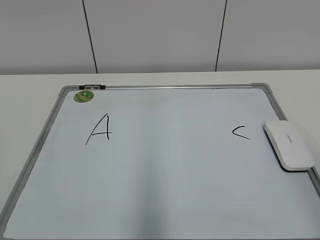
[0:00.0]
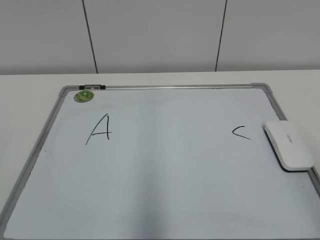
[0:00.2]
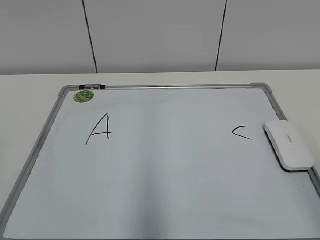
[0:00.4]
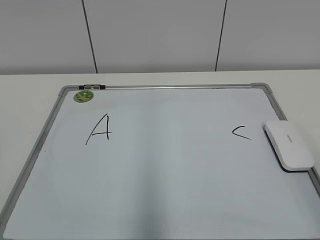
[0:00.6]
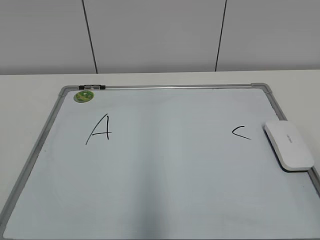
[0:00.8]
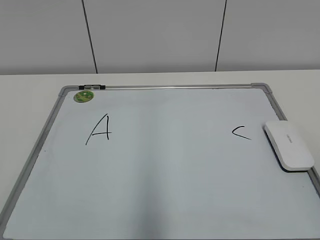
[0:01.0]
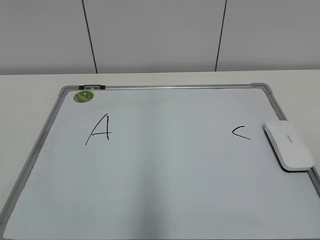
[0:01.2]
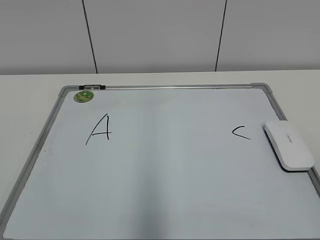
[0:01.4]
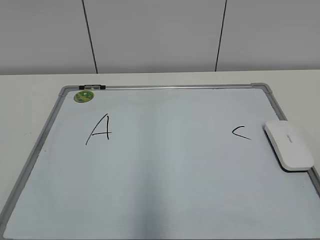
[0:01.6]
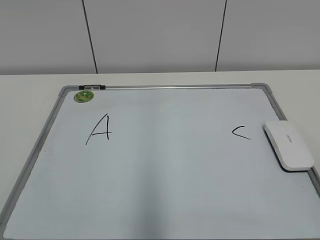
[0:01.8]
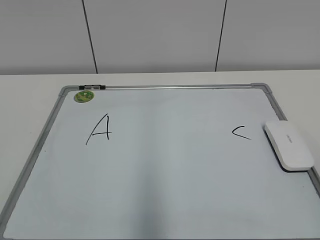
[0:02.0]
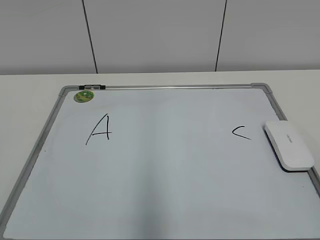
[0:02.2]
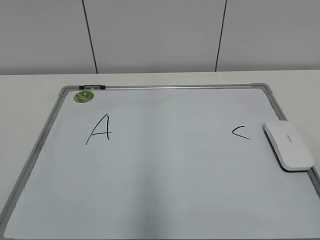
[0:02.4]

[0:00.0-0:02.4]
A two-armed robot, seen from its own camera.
Task of the whole recording: pick up the eraser on the blackboard and erase the letter "B".
0:01.2 to 0:02.4: Both grippers stay put.

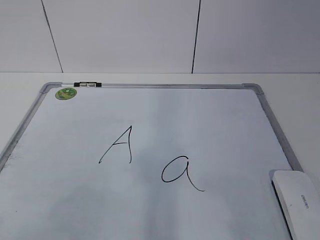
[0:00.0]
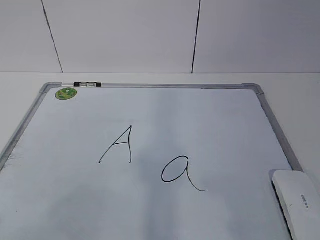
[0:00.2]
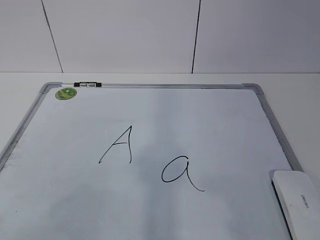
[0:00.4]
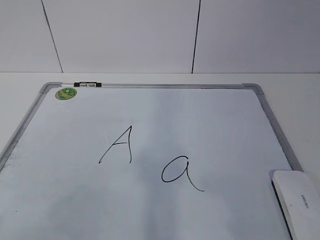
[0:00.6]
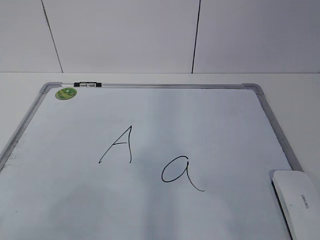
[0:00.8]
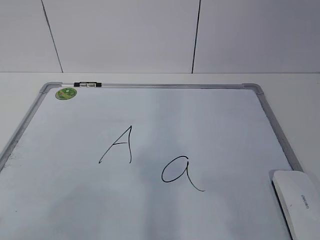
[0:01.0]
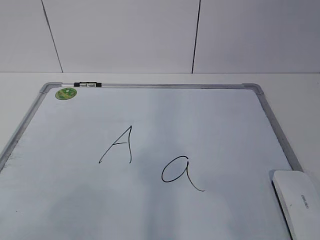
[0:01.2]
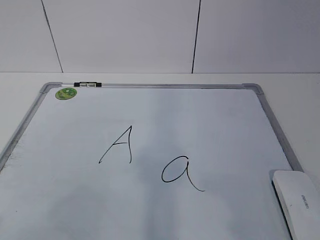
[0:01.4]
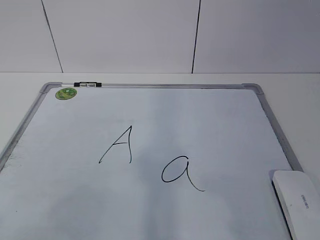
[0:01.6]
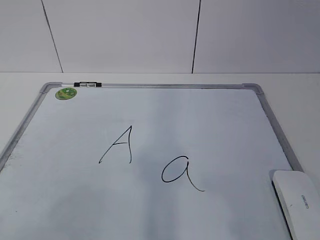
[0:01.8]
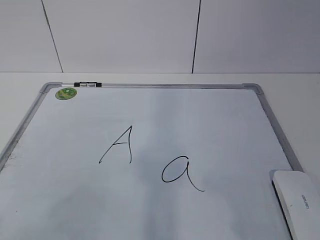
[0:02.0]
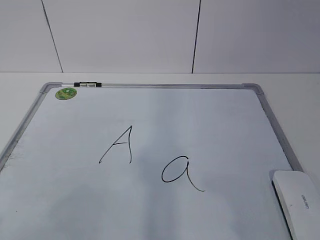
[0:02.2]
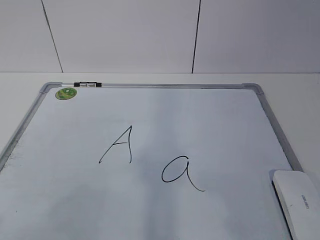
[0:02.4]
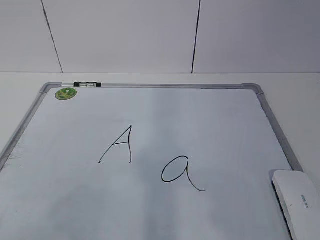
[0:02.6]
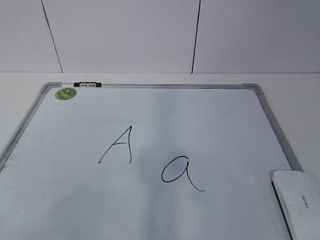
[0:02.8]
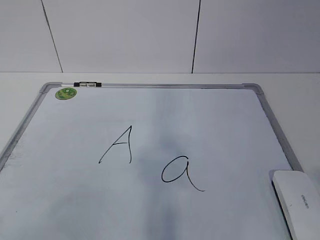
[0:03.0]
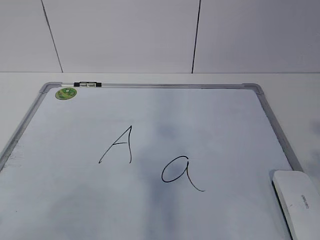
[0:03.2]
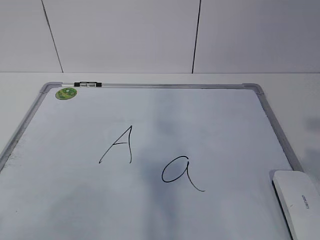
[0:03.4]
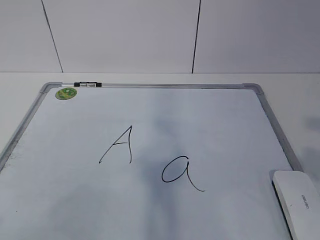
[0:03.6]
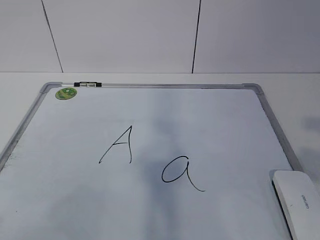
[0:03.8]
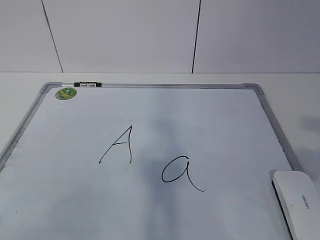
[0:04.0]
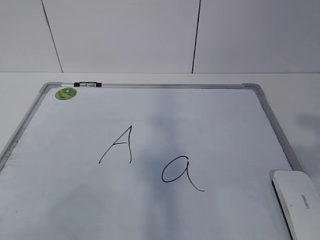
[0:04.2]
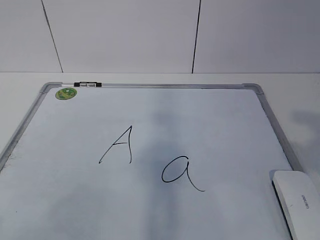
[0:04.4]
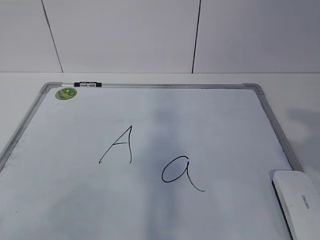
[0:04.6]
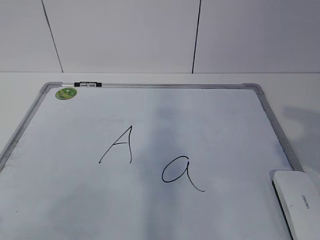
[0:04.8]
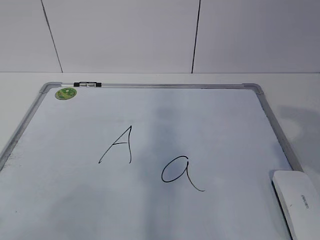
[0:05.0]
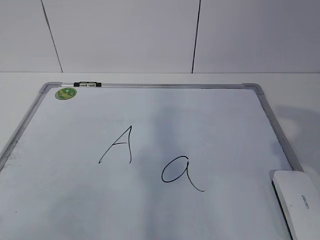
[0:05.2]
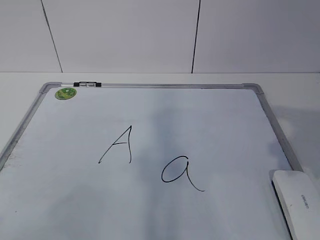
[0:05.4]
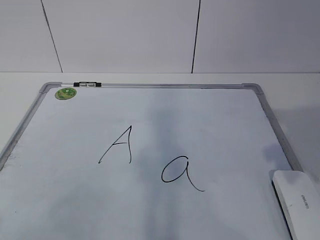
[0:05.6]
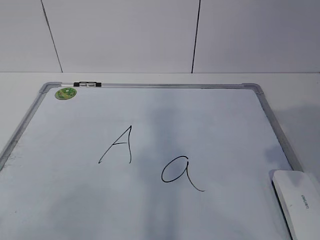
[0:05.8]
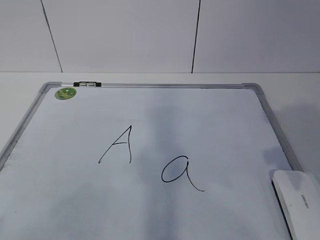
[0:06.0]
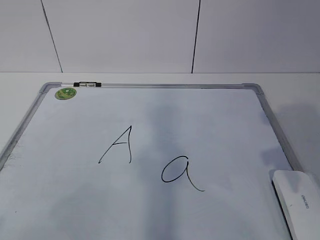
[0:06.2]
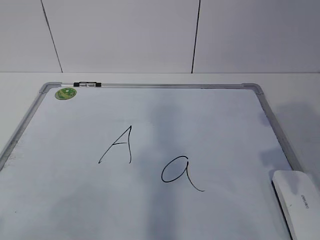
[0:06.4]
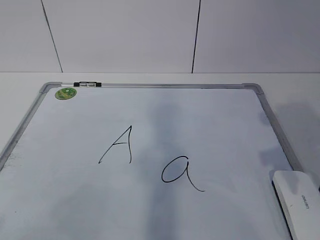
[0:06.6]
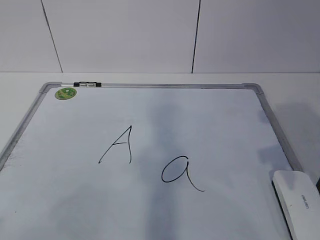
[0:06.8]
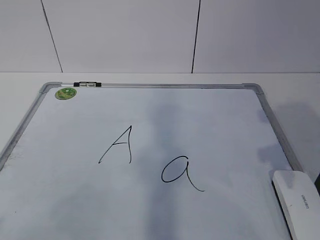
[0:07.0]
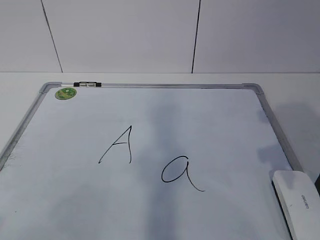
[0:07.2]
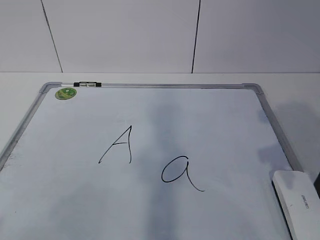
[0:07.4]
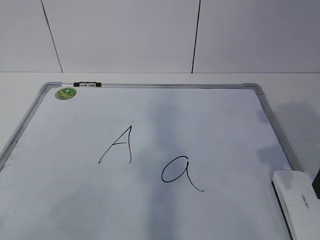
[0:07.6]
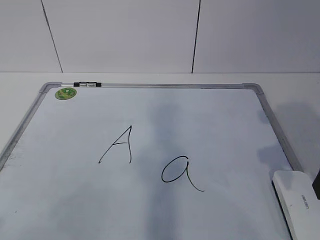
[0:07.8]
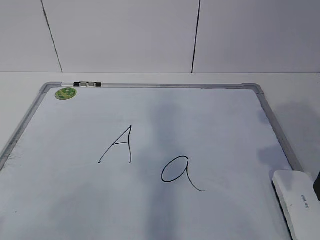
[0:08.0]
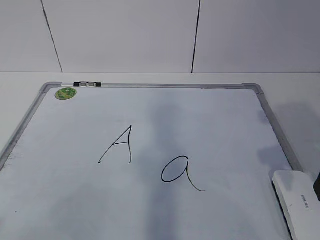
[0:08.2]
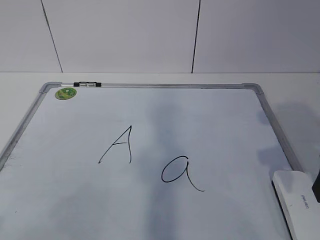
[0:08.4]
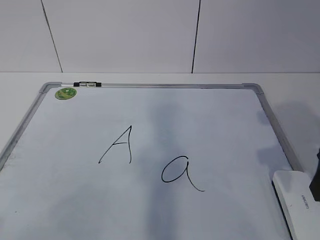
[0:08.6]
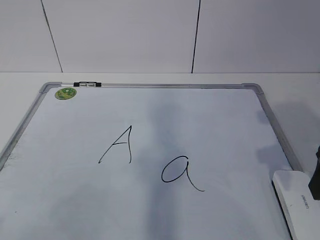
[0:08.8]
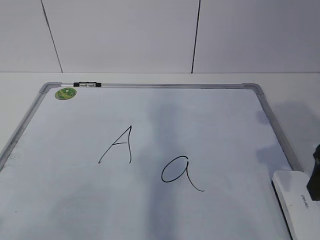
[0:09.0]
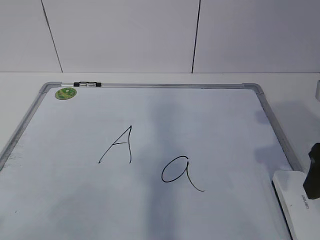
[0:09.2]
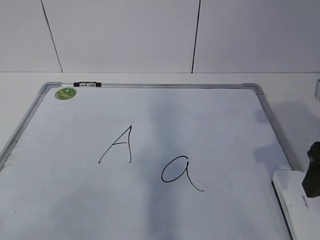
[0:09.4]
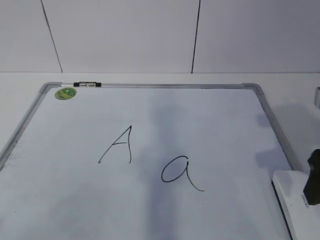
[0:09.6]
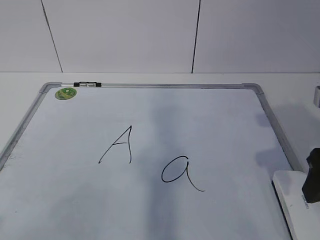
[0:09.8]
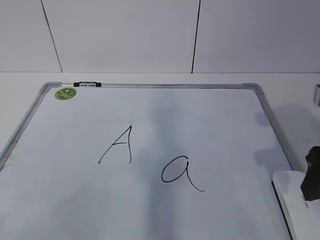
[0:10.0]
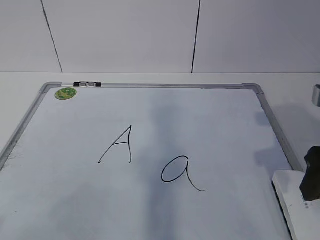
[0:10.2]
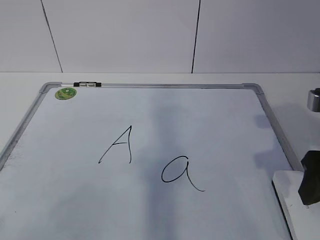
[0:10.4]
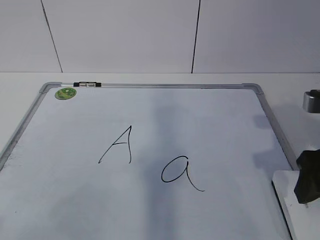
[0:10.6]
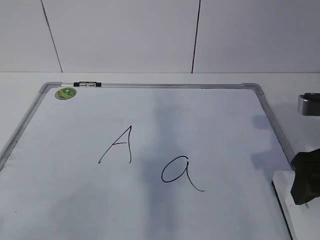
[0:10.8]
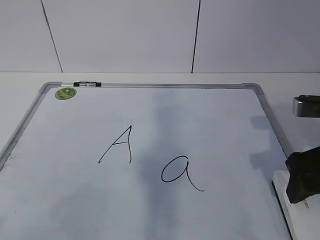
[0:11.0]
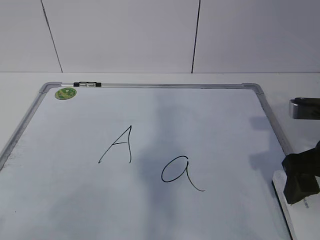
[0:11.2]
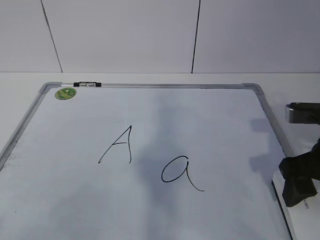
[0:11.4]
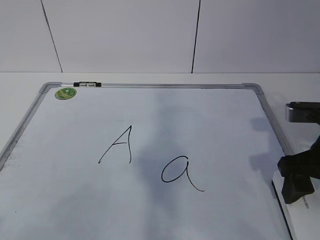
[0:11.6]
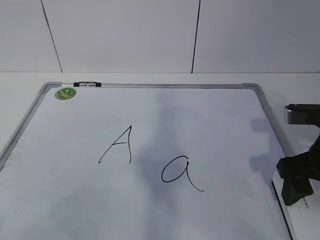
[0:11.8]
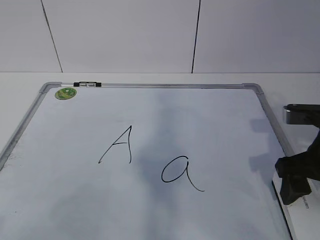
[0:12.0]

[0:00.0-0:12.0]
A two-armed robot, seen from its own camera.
Task of the whole recording: pick up the eraser on the blackboard and erase the letter "a".
0:07.6 to 0:09.0: Neither gripper changes place.
0:09.0 to 0:10.4: The grippers move only a little.
0:10.4 to 0:12.0: The right gripper ends up some 5 cm from where it was.

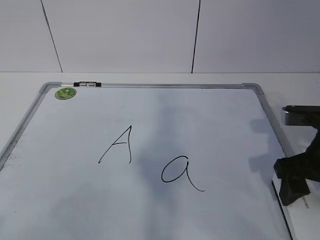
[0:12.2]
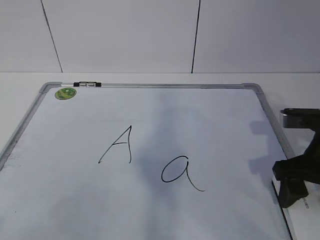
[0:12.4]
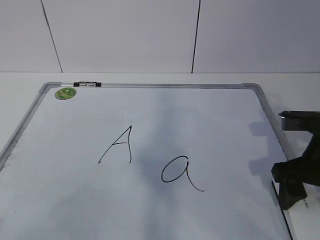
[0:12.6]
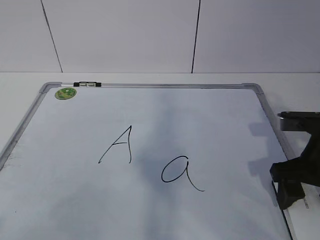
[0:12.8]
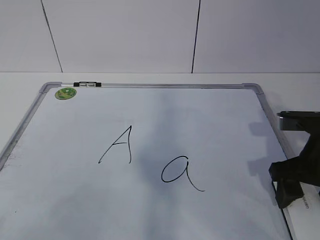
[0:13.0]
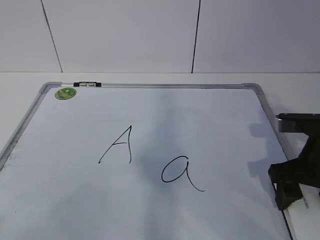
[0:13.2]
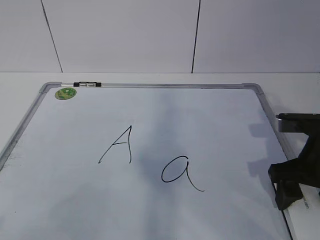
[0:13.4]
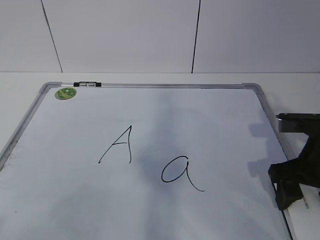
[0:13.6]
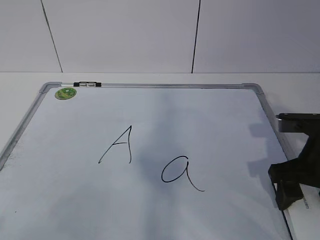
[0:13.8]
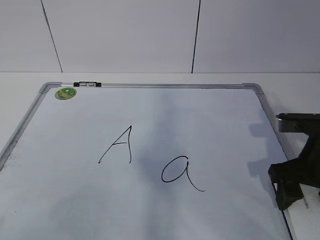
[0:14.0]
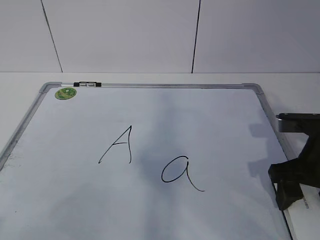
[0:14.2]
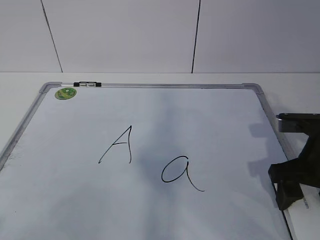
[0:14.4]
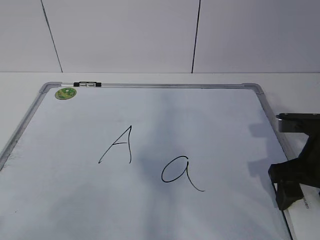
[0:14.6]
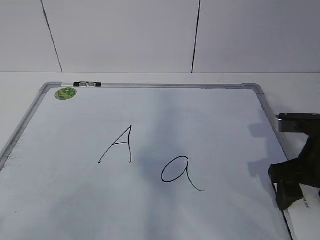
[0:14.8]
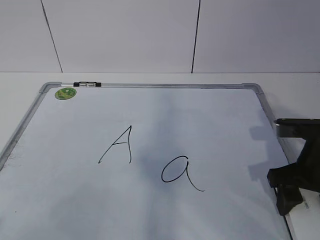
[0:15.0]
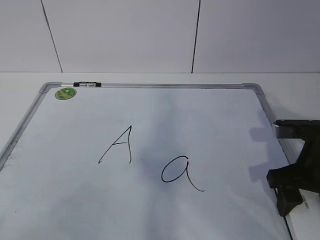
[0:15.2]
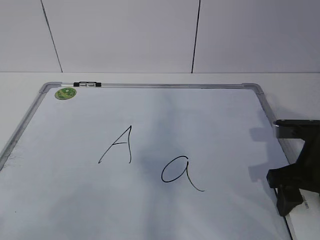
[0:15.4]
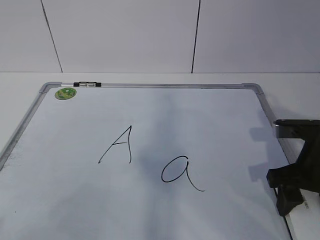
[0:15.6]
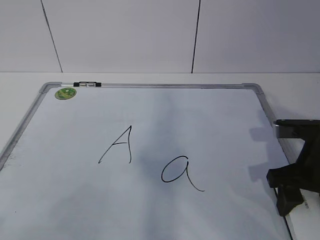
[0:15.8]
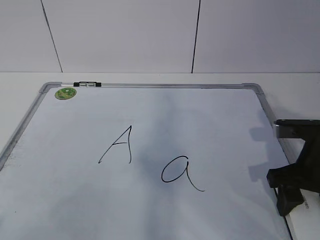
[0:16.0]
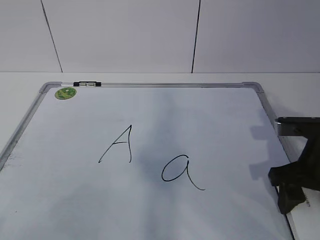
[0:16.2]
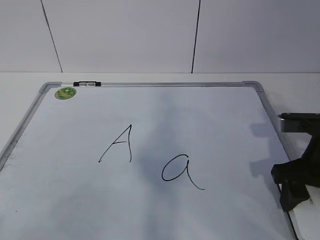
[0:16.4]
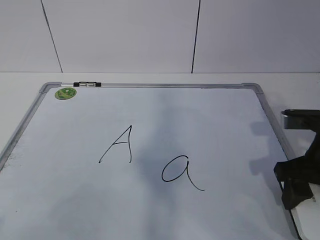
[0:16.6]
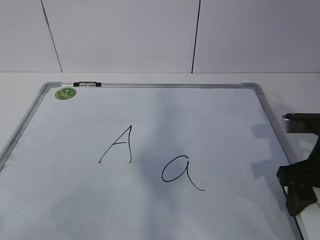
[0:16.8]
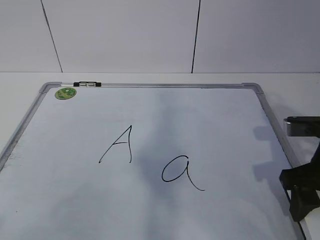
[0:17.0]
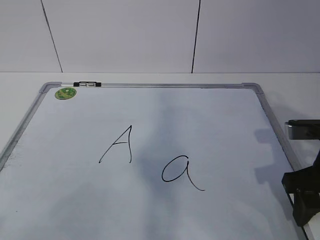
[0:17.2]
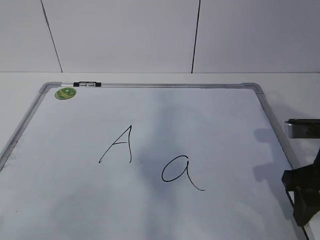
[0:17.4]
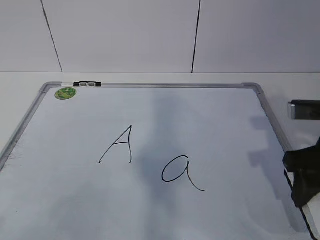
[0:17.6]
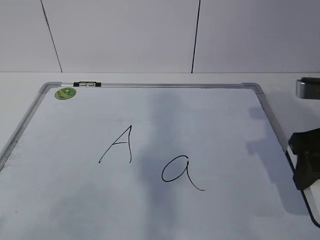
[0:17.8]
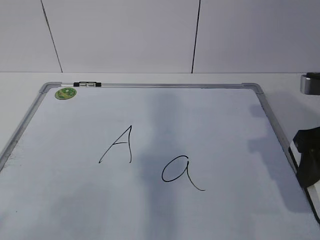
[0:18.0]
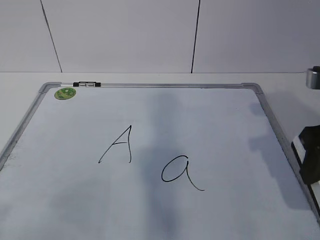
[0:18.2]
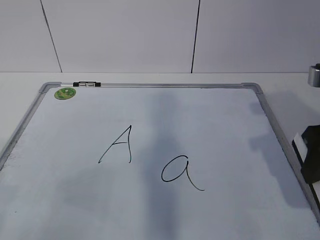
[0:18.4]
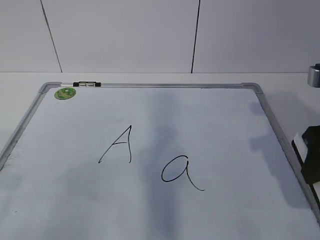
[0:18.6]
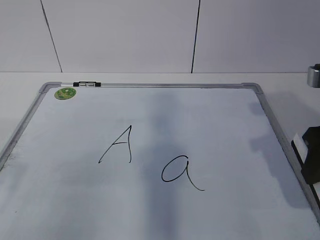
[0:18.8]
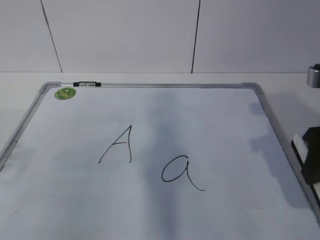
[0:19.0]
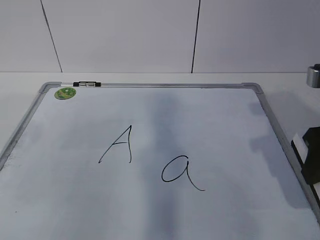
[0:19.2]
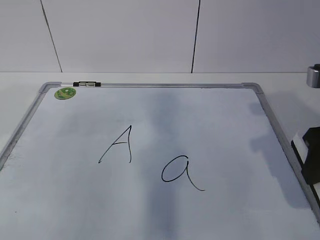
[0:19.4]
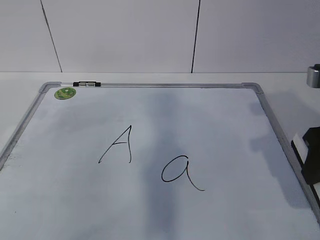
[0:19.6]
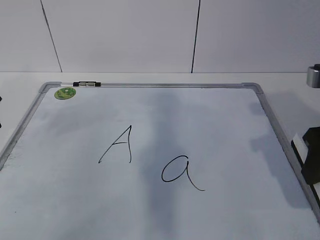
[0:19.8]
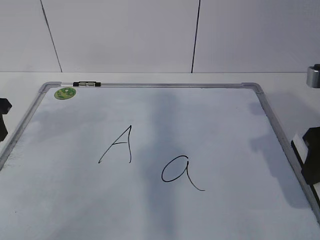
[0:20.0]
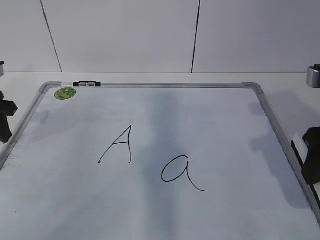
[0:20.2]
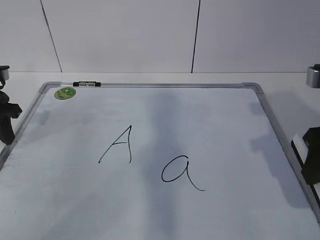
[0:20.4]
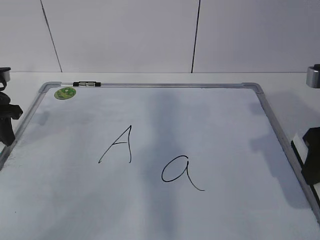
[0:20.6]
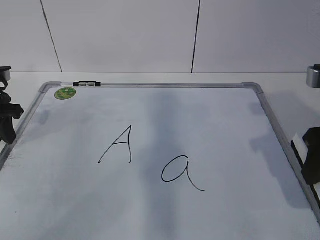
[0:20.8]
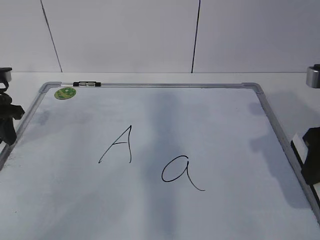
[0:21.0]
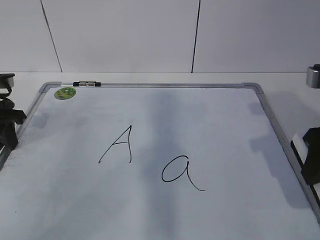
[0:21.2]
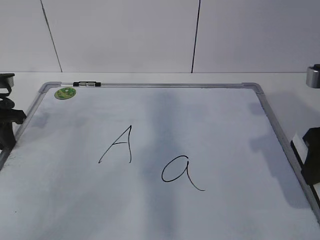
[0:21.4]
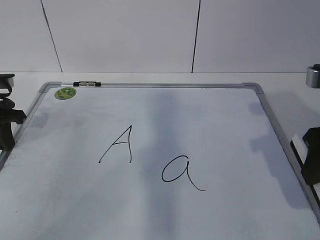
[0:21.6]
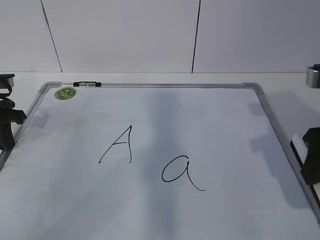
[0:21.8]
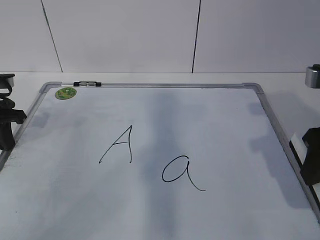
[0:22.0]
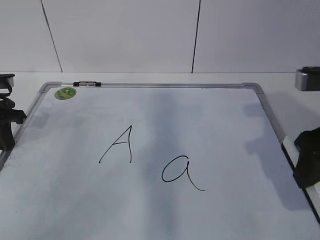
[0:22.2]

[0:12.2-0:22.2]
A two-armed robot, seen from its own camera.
Task of the whole recording: pick up the eraser on the blackboard and erase the letter "a".
0:12.2 to 0:13.6: The grippers move only a little.
0:13.6 to 0:15.0: Both grippers stay put.
0:15.0 to 0:16.4: The right gripper closes up.
0:16.4 to 0:18.0: The right gripper travels upward by about 10 cm.
0:19.4 to 0:20.8: The left gripper travels forward and downward by some 15 cm, and closes up.
0:20.8 to 0:22.2: The left gripper closes up.
